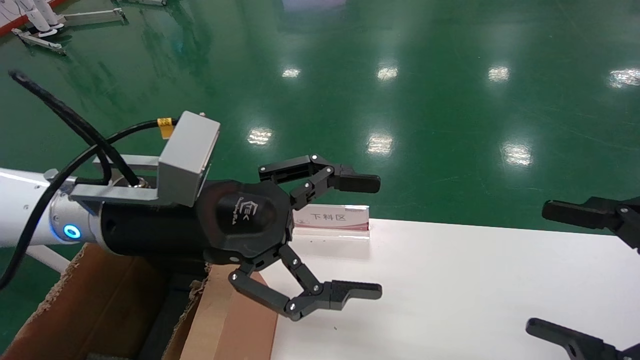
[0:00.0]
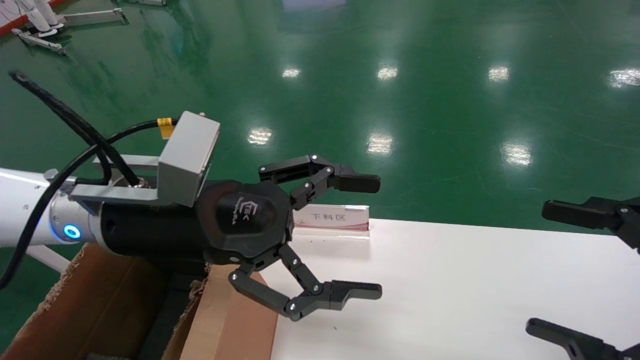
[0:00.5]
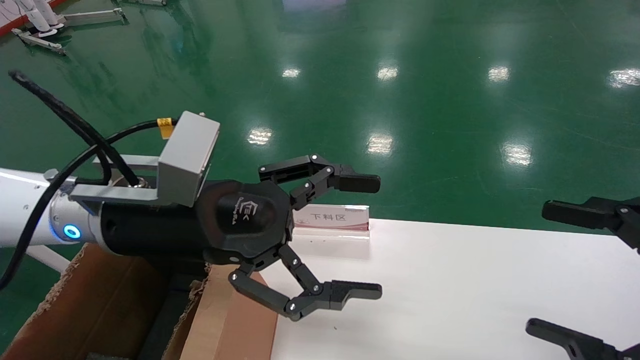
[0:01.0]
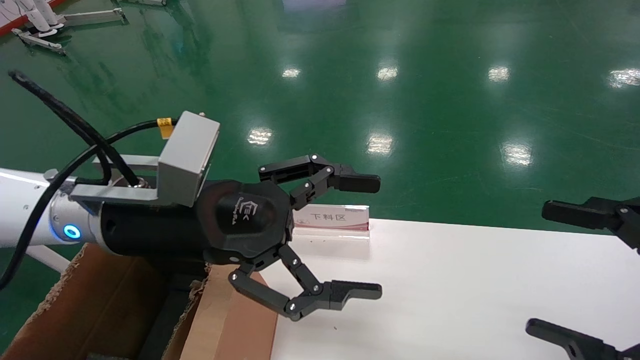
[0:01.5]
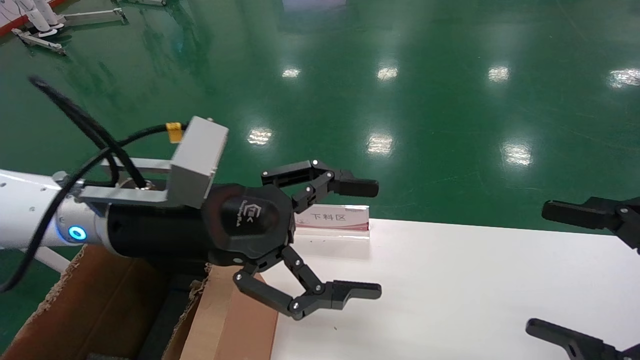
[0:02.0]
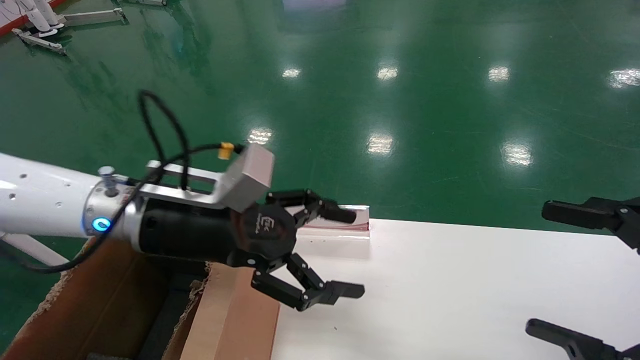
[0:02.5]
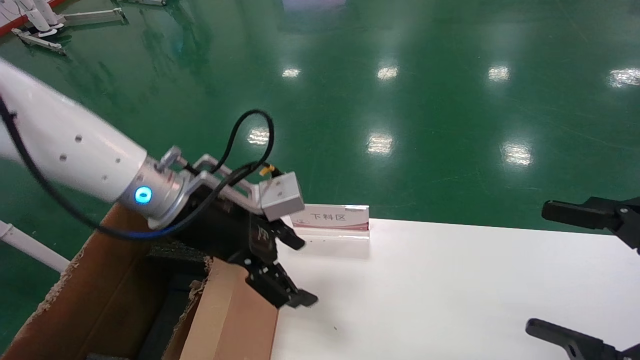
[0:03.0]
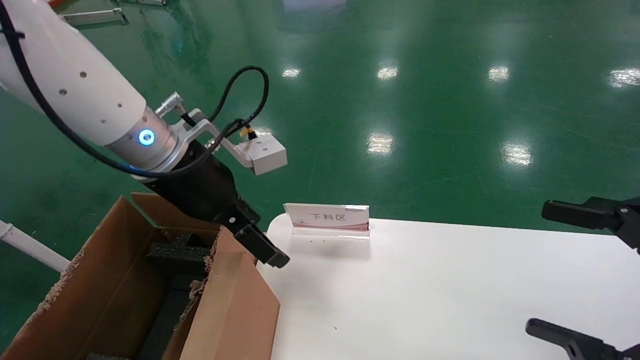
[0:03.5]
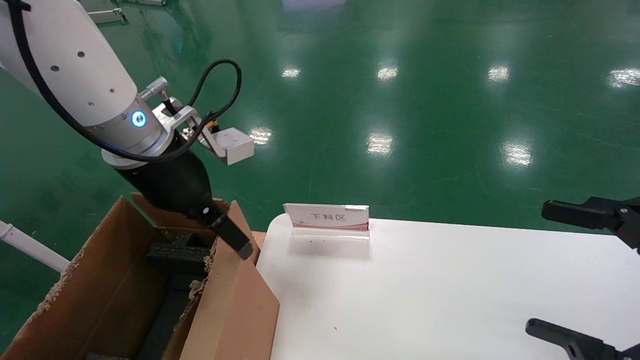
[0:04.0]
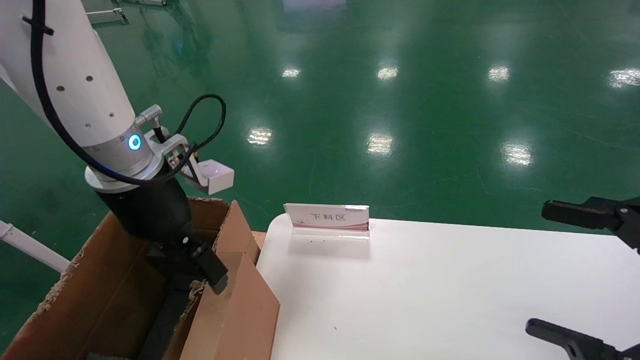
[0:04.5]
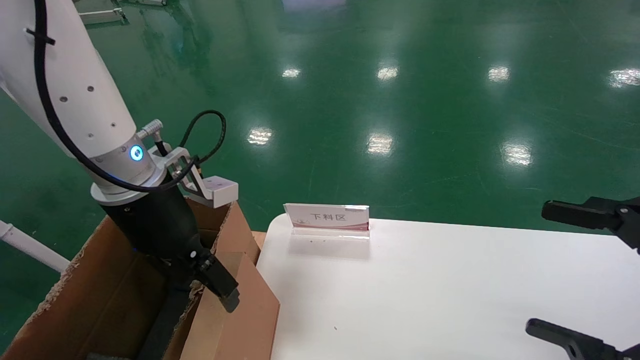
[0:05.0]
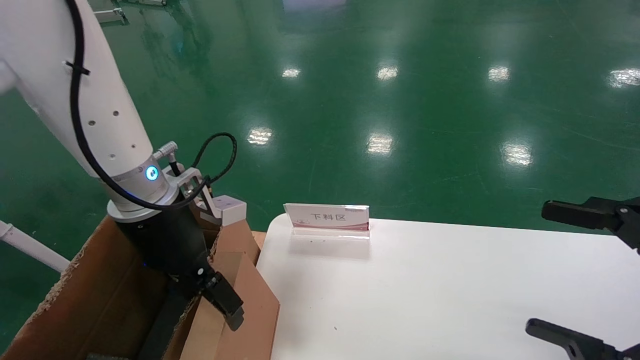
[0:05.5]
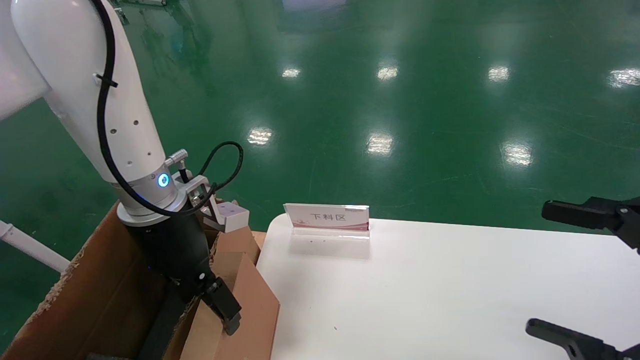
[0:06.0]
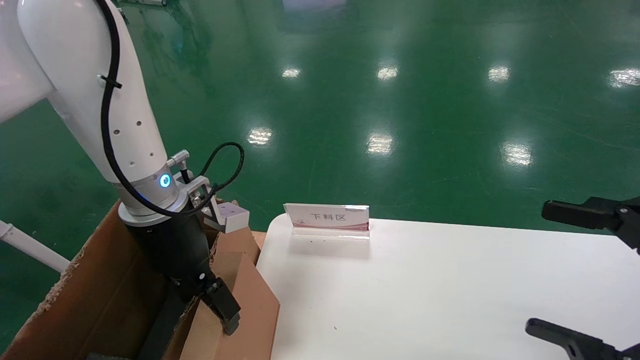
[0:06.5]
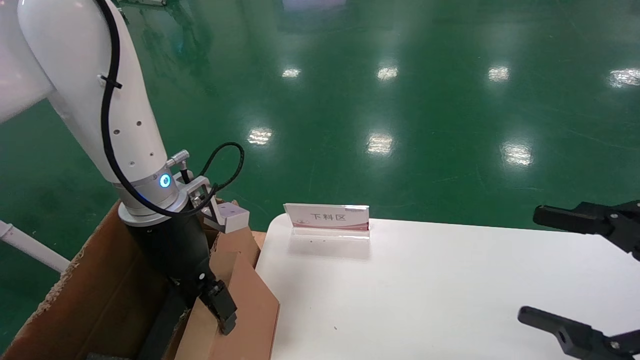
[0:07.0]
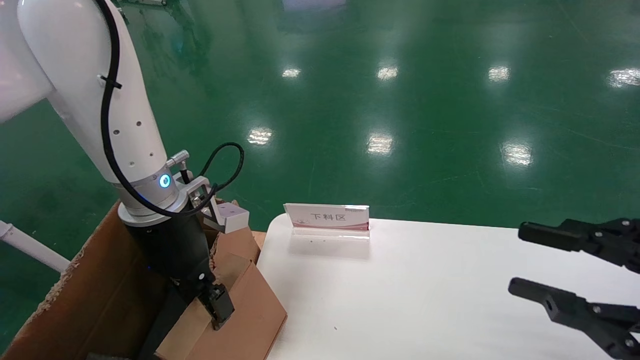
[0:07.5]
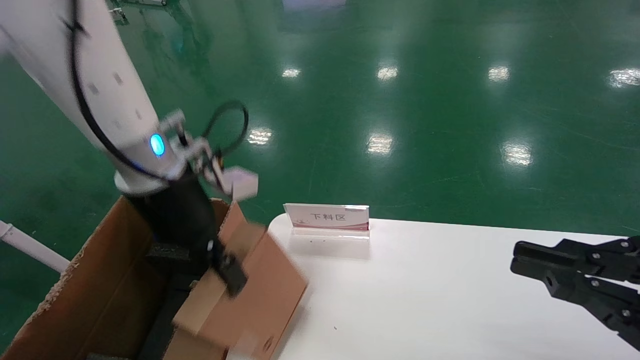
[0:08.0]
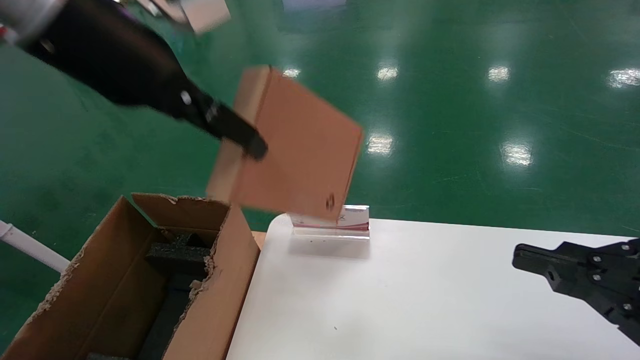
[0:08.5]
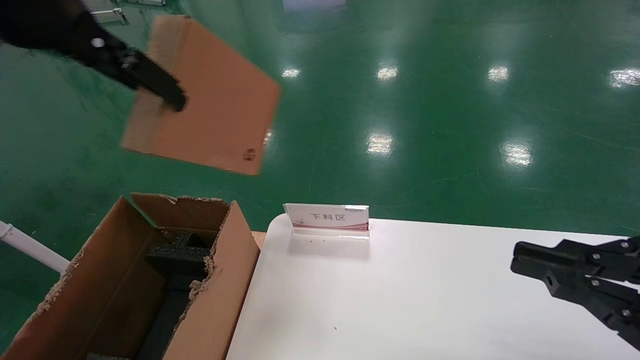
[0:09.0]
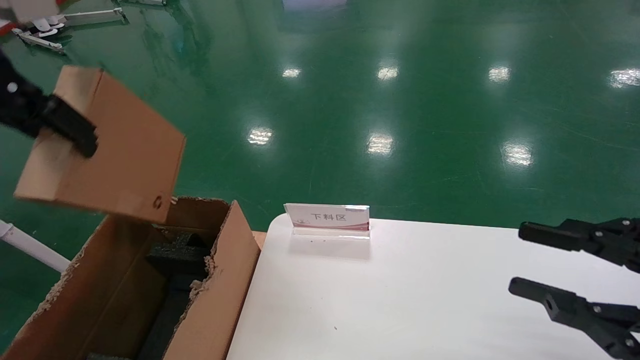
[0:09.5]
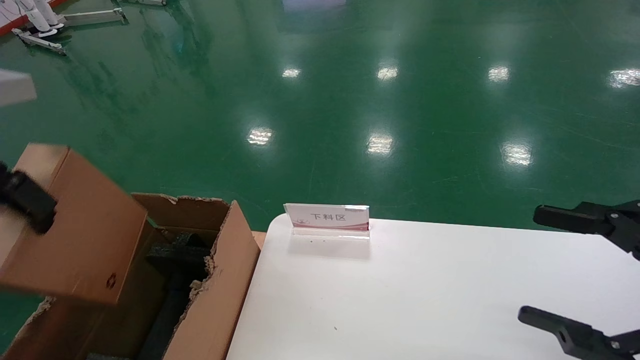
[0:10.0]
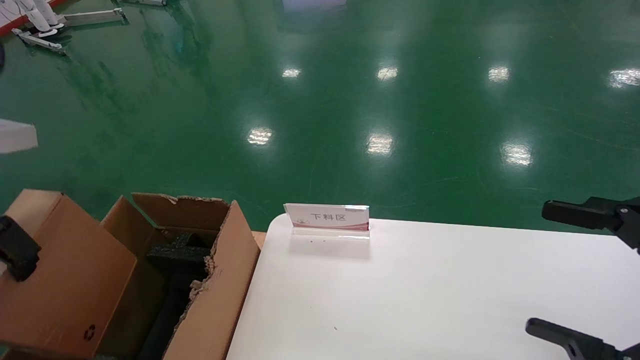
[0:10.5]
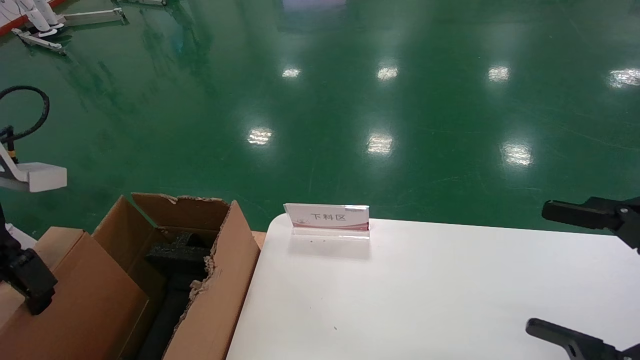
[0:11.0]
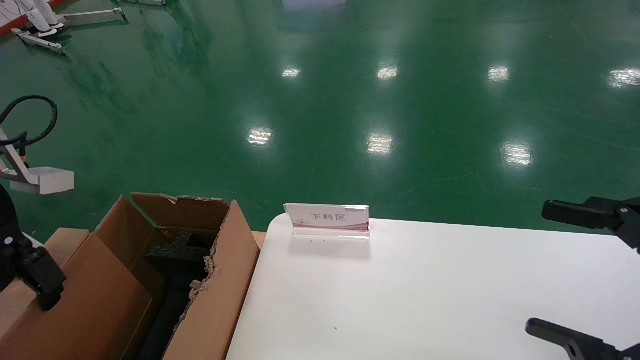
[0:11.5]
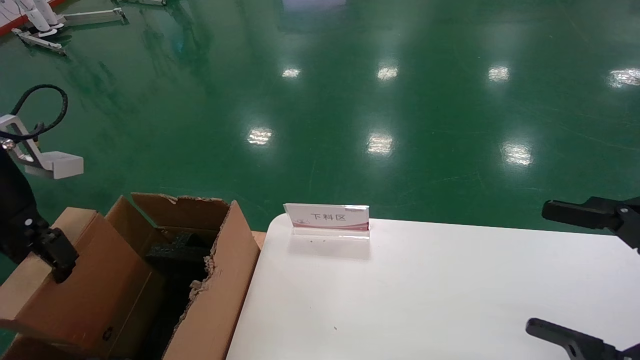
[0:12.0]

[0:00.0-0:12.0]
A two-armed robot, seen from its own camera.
Task of the whole recording: pick up the small cardboard box and load it into the large cardboard box.
Step, 0:00.0 to 0:07.5: Grasp the paper box.
0:00.0 to 0:02.0: Both grippers stay about where they are.
0:02.0 to 0:04.0: The left gripper is displaced upward by roughly 5 cm.
0:04.0 to 0:06.0: The left gripper shifts some 5 cm downward.
0:06.0 to 0:08.0: The right gripper closes up; the left gripper heads upward, covering approximately 10 cm, and closes.
0:08.0 to 0:10.0: The left gripper travels to the left, backward and upward by some 20 cm. Meanwhile the right gripper opens.
0:10.0 to 0:12.0: The right gripper opens. The left gripper goes approximately 15 cm downward, forward and to the left.

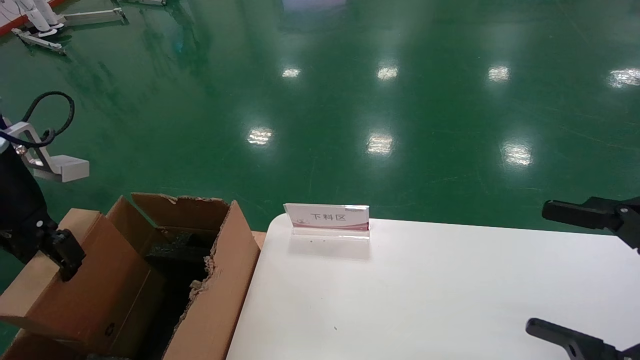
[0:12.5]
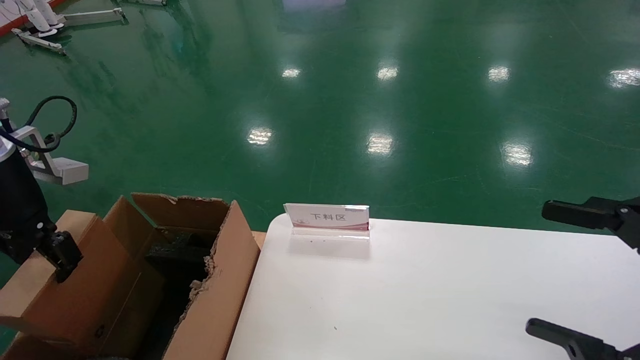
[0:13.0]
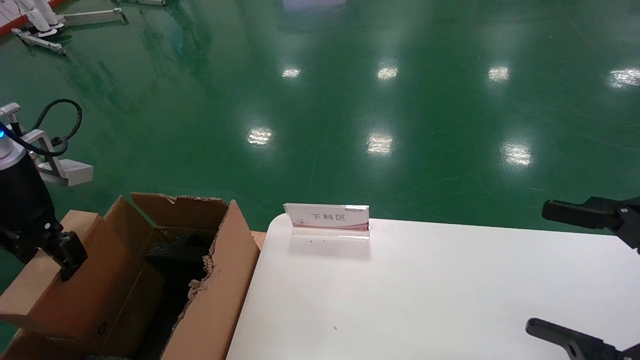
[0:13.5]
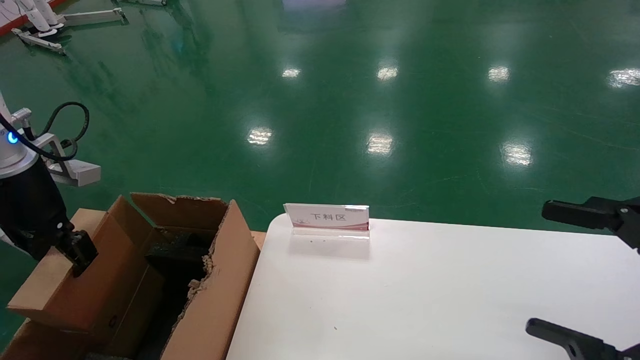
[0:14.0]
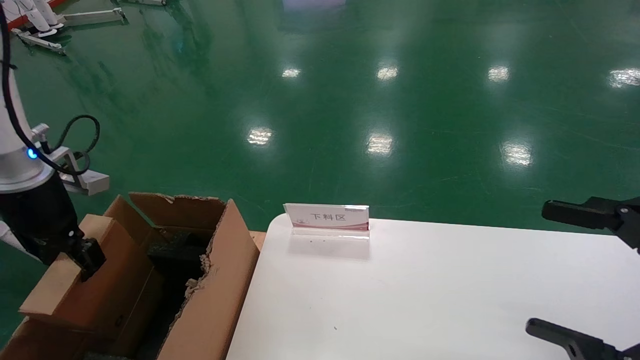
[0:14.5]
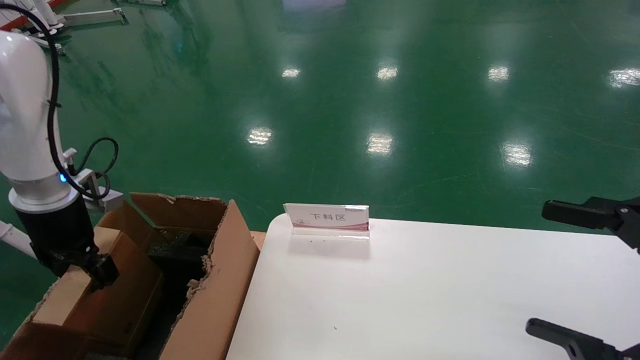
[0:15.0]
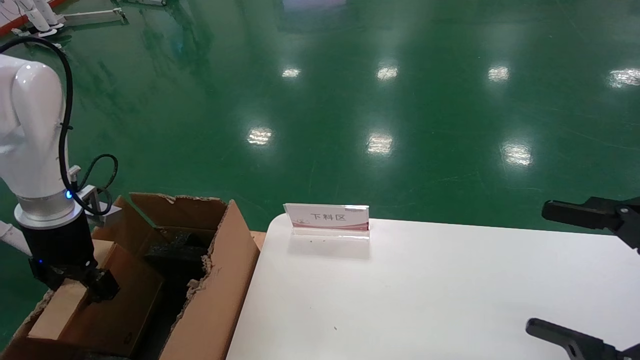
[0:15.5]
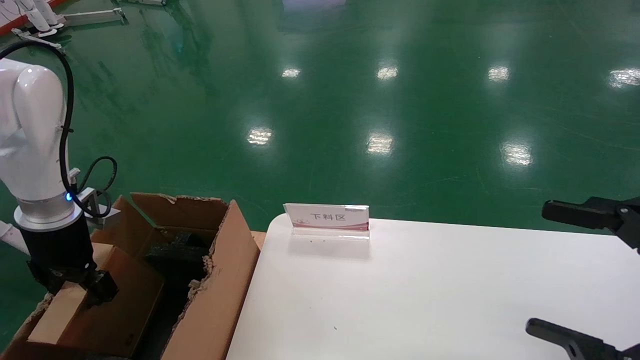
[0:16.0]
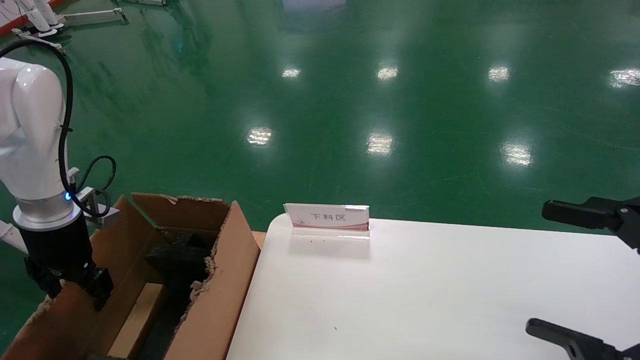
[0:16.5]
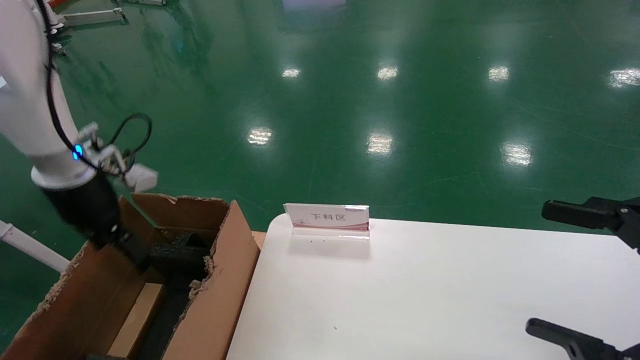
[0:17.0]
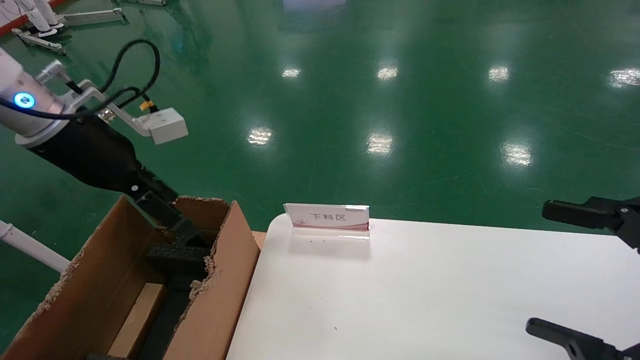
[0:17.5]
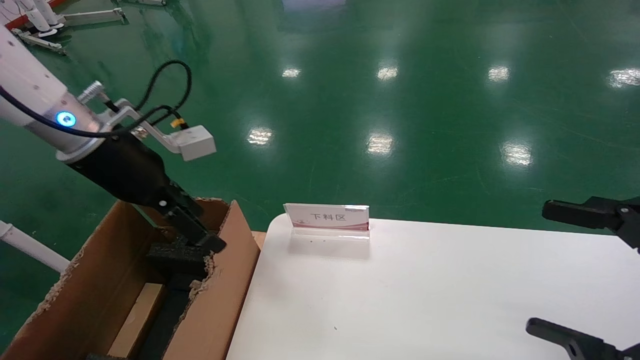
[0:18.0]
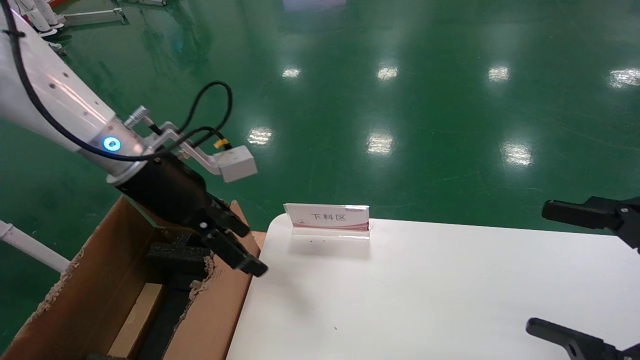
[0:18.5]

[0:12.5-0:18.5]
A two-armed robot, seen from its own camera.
Task of the whole recording: pick up the small cardboard box and load it into the large cardboard box.
Step, 0:12.5 to 0:16.0: Place the paper box in the another big box.
0:12.5 to 0:14.5: The left gripper travels downward by about 5 cm.
0:14.5 to 0:16.5: The left gripper goes about 5 cm downward.
0:16.5 to 0:18.5: The left gripper is displaced to the right and upward by approximately 20 cm, and opens its fingers.
